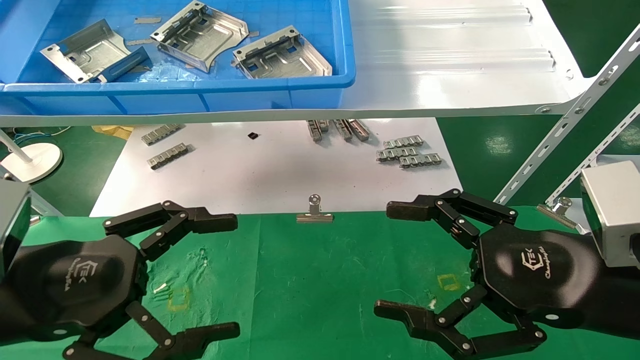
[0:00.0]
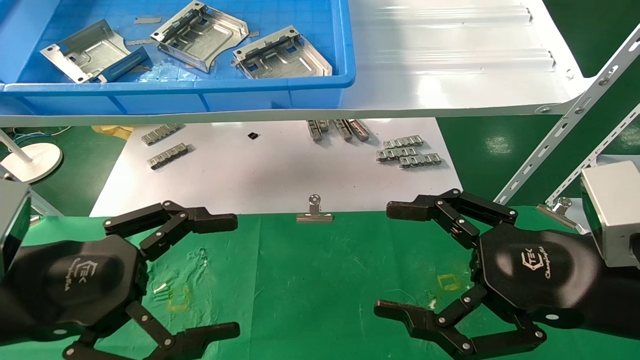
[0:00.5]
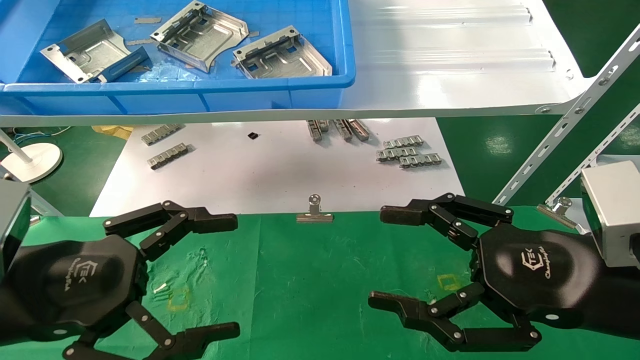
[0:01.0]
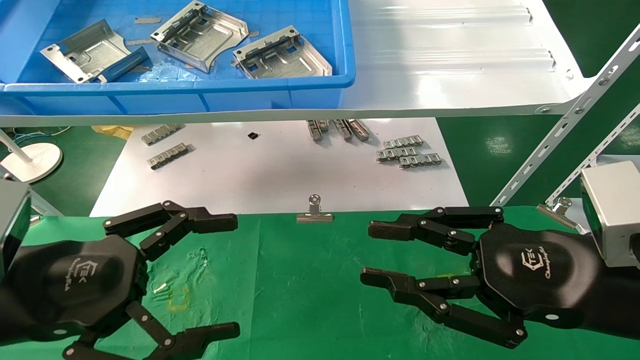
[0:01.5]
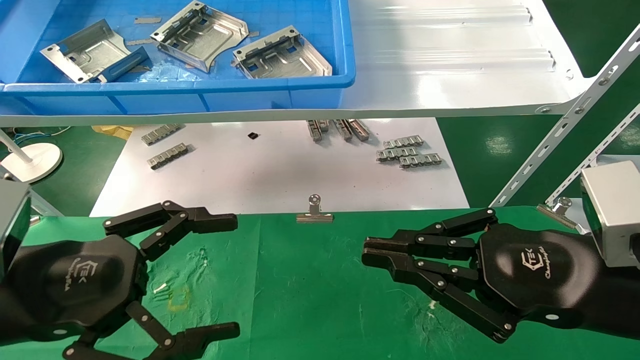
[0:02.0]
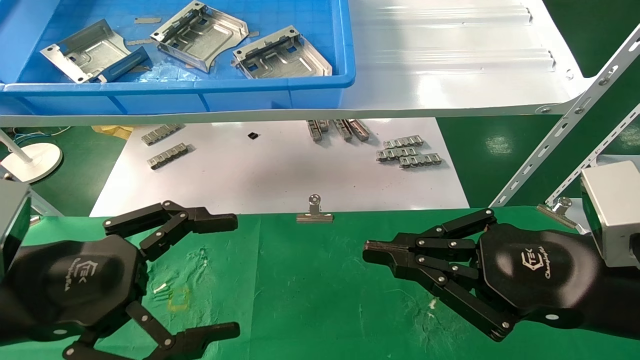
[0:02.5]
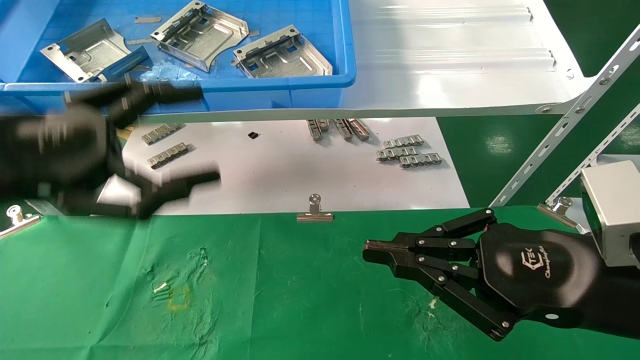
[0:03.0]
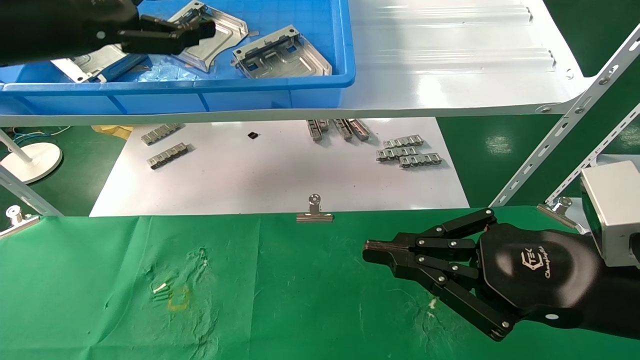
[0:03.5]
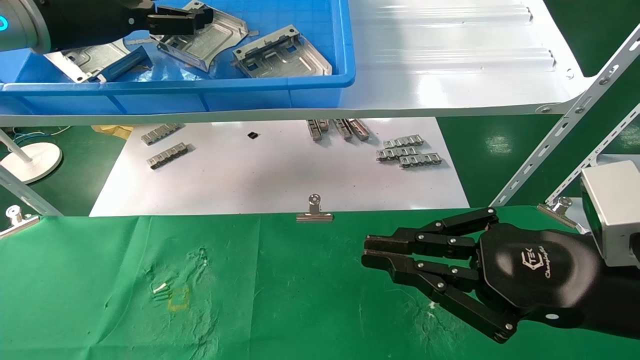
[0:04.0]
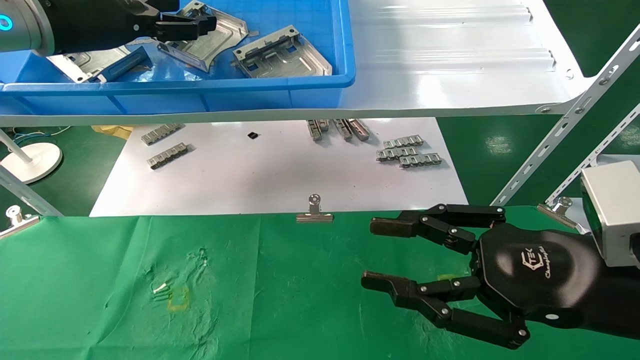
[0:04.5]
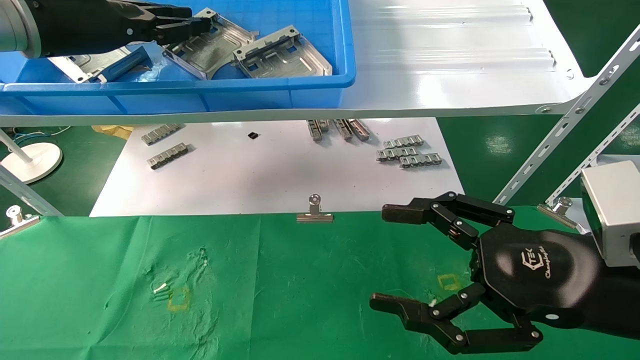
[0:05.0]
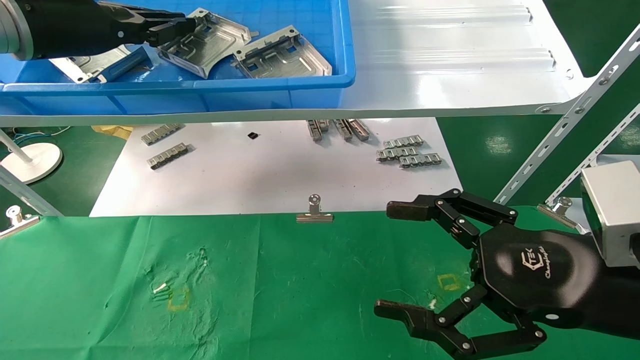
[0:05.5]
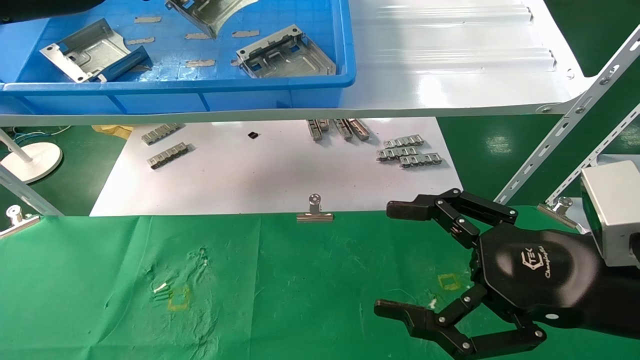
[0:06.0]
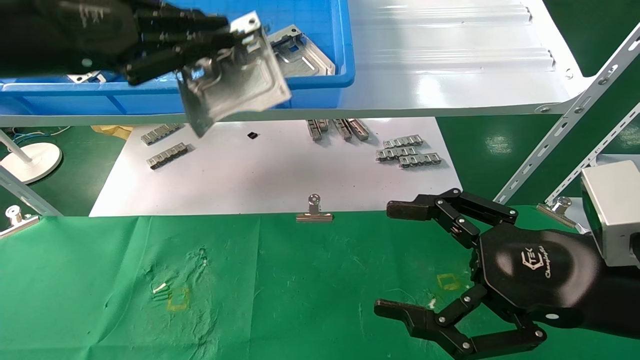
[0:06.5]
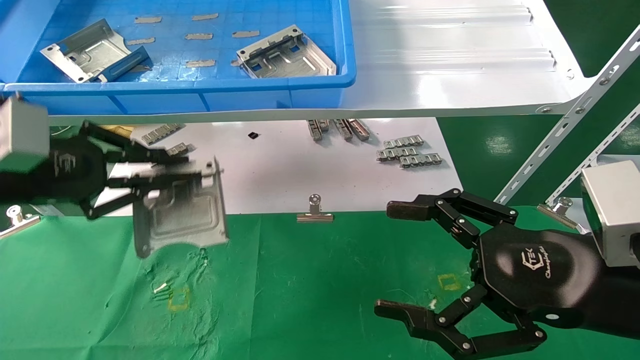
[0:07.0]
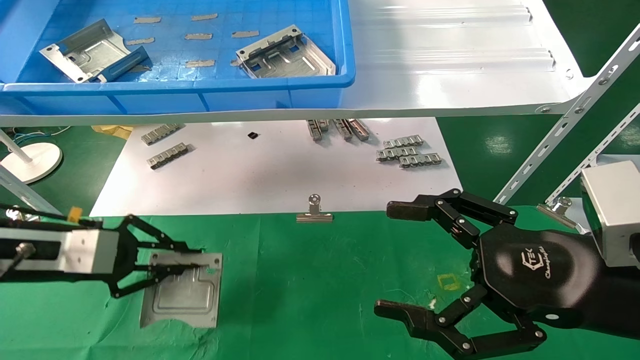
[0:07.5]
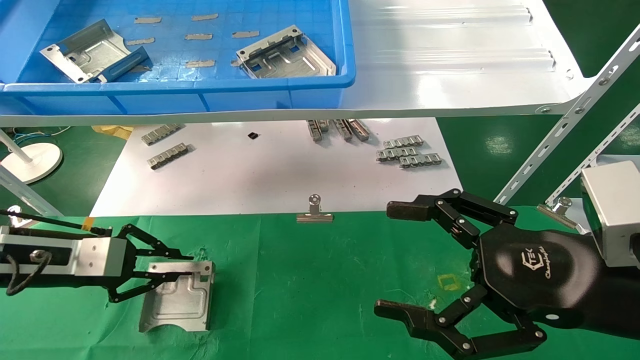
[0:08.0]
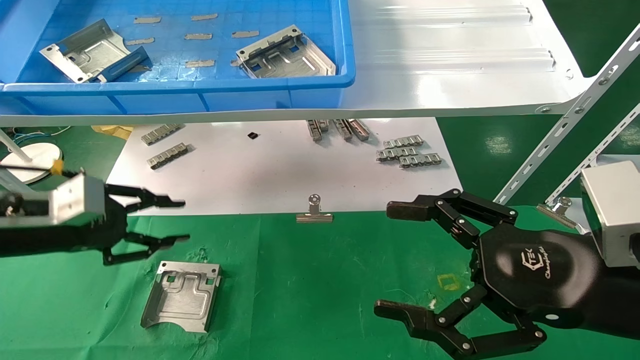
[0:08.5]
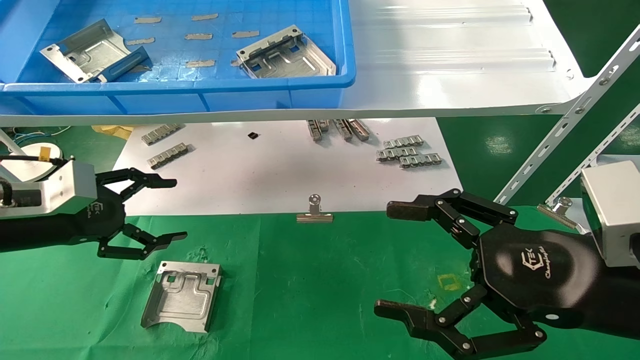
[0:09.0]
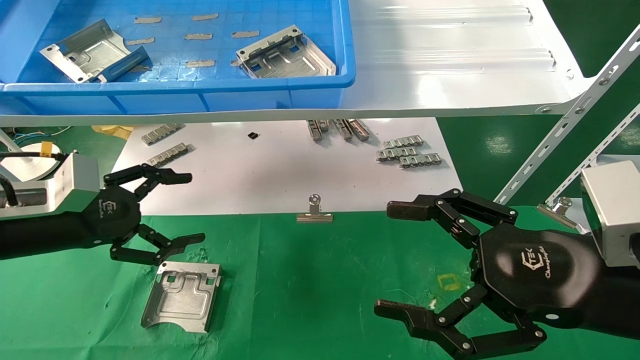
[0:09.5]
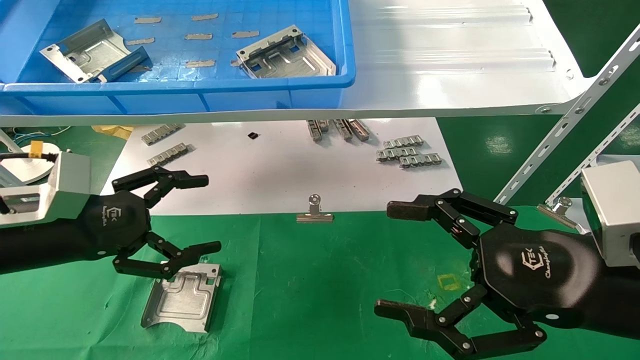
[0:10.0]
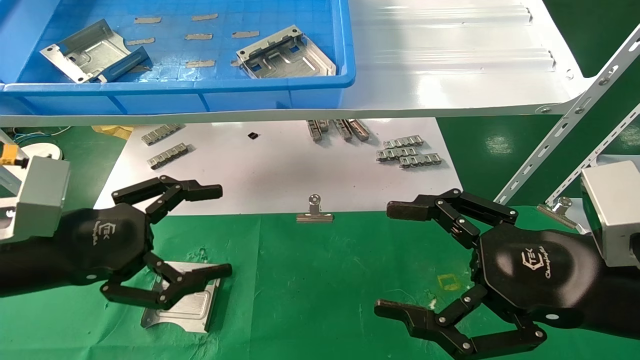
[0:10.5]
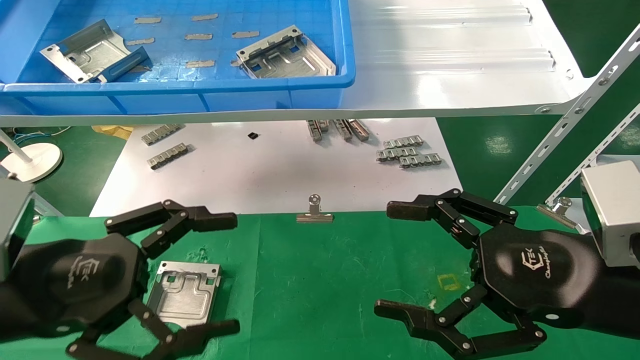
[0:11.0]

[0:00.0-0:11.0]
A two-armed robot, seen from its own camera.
Task of the whole recording: use the mechanical arm to pick up the parts and place them on the table.
Step, 0:03.0 to 0:05.0: Pick up the hard drive bracket from the feeding area.
Step, 0:05.5 to 0:08.5: Place the hard drive bracket into the box.
0:00.0 to 0:02.0: The right gripper closes up.
0:02.0 to 0:03.5: The left gripper moves upward and forward, roughly 25 cm.
0:03.5 to 0:05.5: The right gripper opens. The left gripper closes its fingers.
0:05.5 to 0:07.5: The left gripper travels downward by about 25 cm.
0:07.5 to 0:09.0: The left gripper opens its fingers.
0:09.0 to 0:11.0: The left gripper moves backward and to the right, about 15 cm.

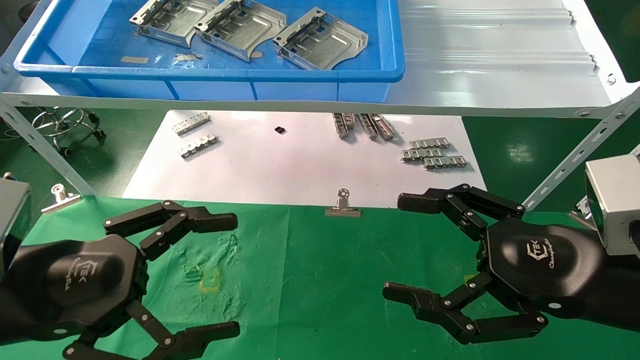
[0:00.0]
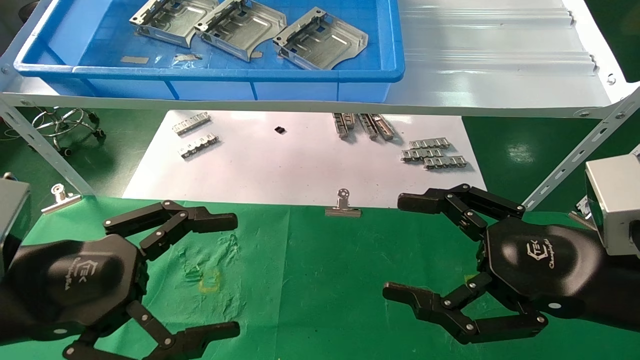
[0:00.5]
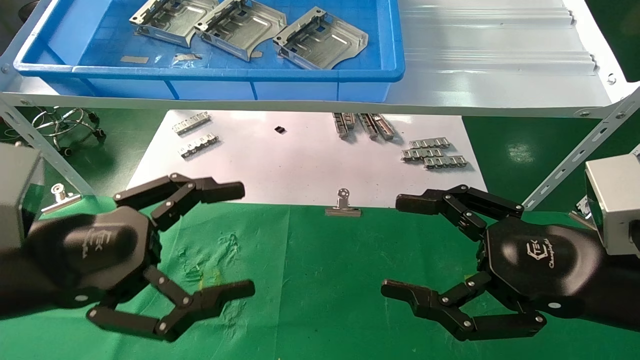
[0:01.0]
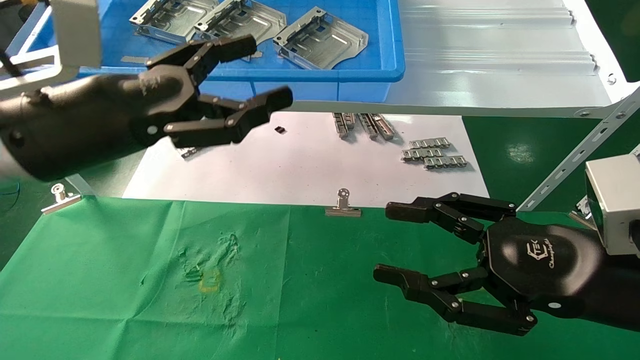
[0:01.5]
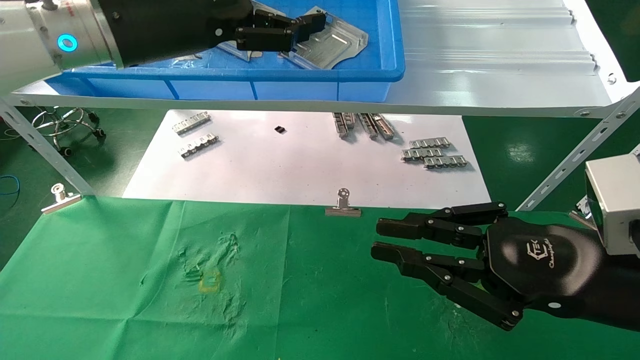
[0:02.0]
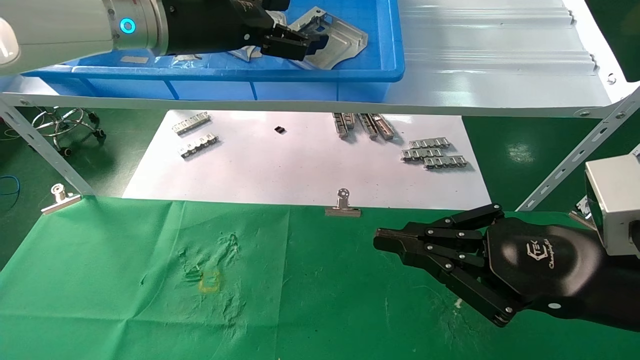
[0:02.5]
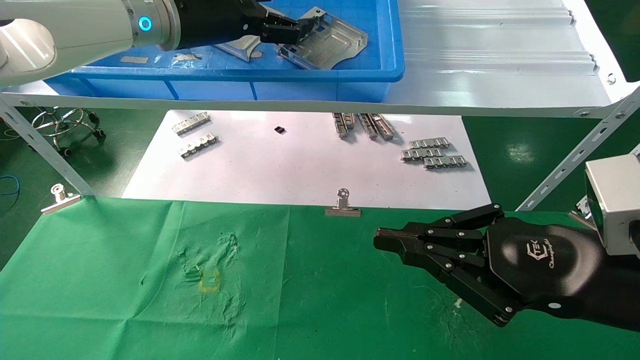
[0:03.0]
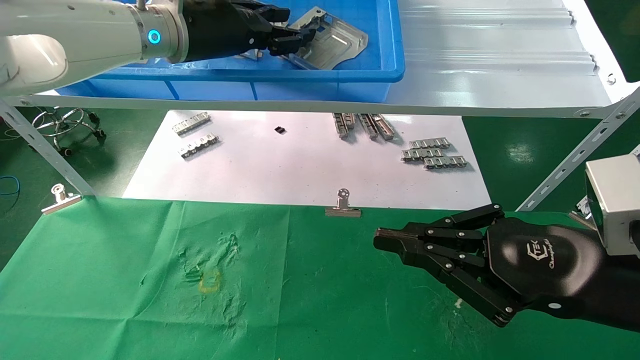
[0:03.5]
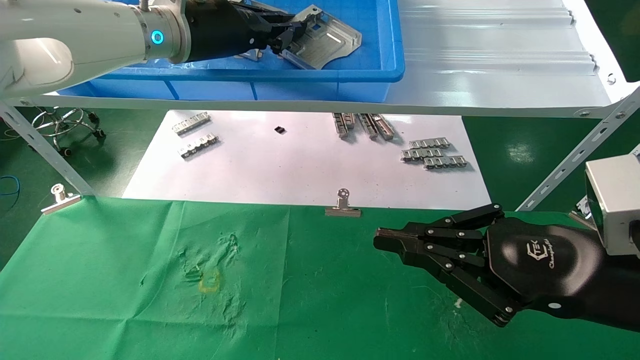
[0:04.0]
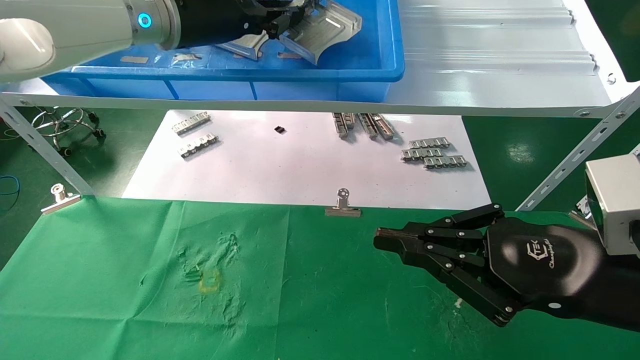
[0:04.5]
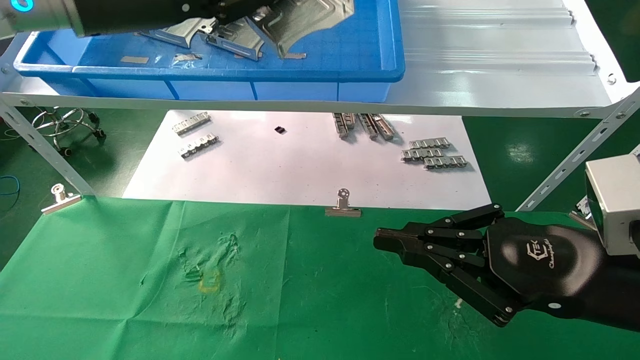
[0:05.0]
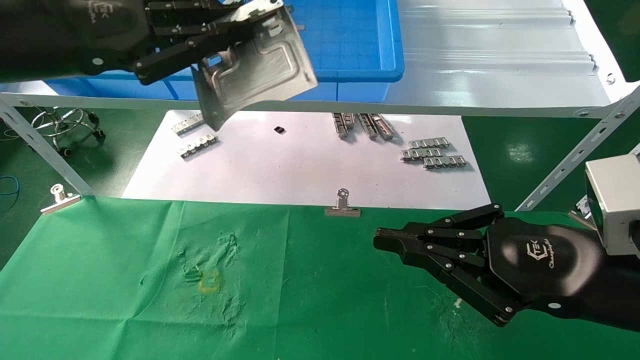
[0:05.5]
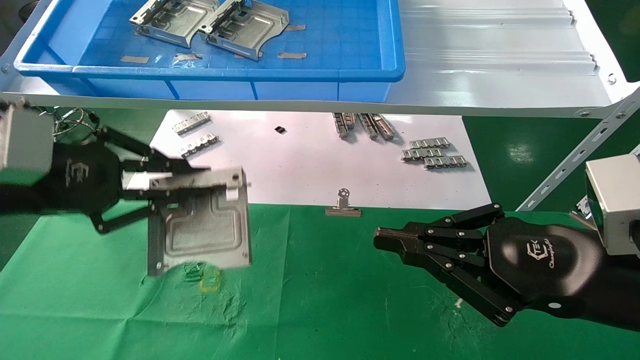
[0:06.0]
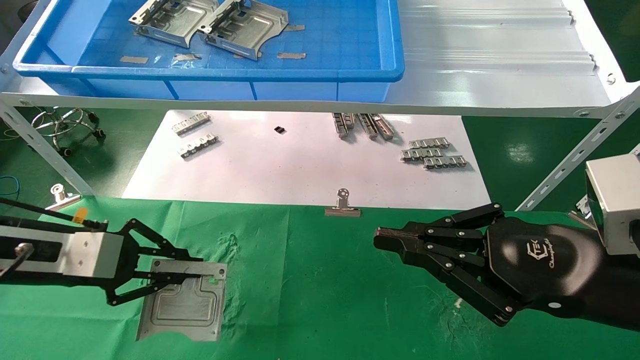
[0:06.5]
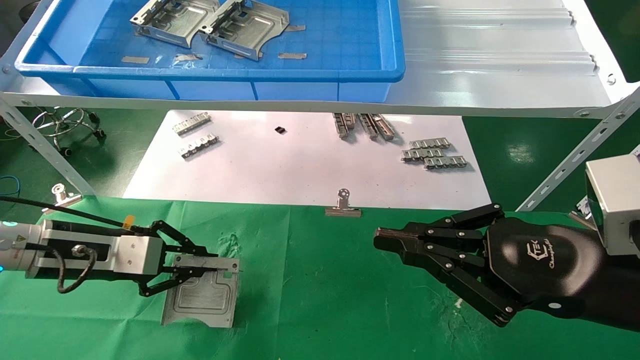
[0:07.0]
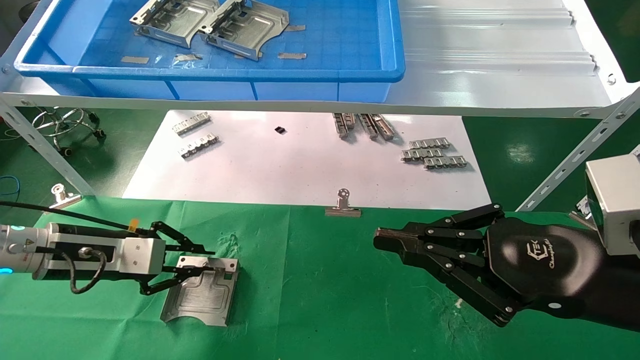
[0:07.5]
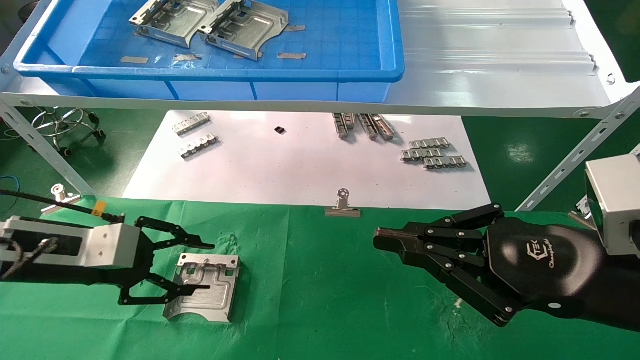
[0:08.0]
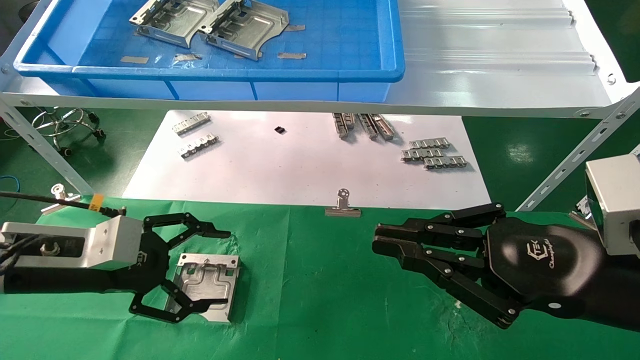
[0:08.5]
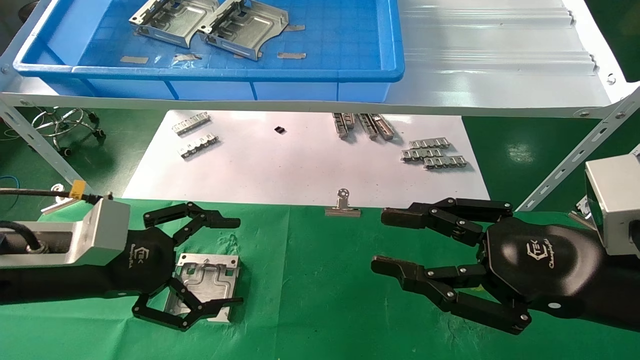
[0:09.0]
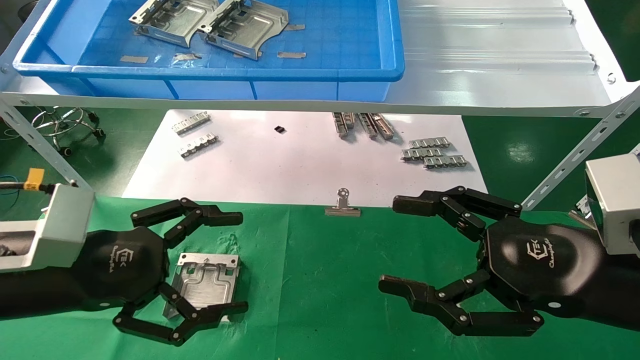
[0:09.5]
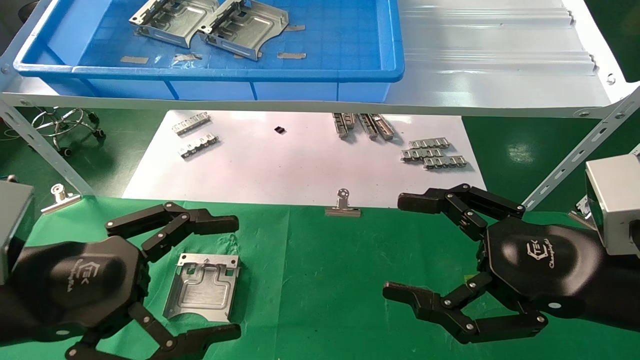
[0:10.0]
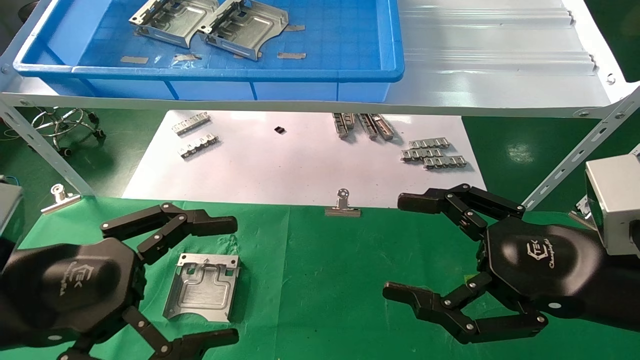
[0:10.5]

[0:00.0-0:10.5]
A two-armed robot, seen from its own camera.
Task of the whole recording: use the mechanical arm to pick up the parts and place them on the table.
Step, 0:01.5 to 0:04.0: Pick up the hard drive bracket from the feeding area.
Step, 0:04.5 to 0:07.5: Place the hard drive bracket into the box.
0:00.0 to 0:02.0: The left gripper moves upward, forward and to the right, roughly 25 cm; the right gripper closes.
0:02.0 to 0:04.0: The left gripper shifts roughly 5 cm forward, and closes.
0:04.0 to 0:06.5: The left gripper goes roughly 30 cm downward, to the left and backward.
0:06.5 to 0:08.5: The left gripper opens its fingers.
0:08.5 to 0:10.5: The right gripper opens its fingers. The left gripper moves backward, about 10 cm.
